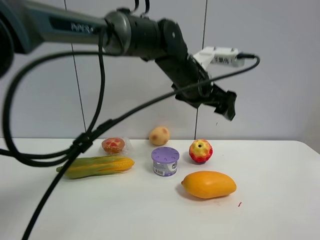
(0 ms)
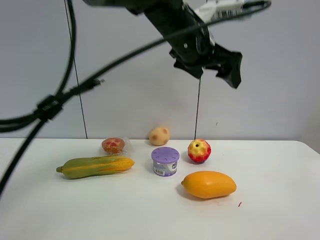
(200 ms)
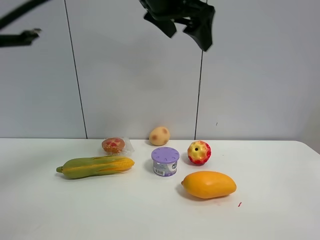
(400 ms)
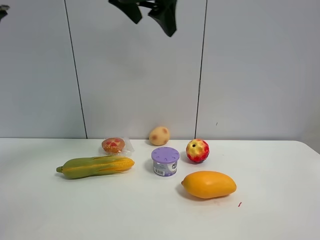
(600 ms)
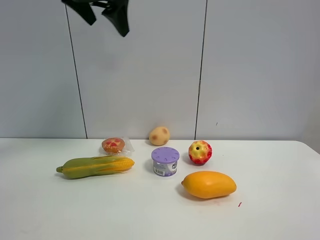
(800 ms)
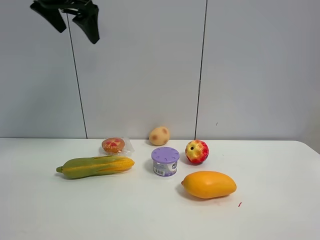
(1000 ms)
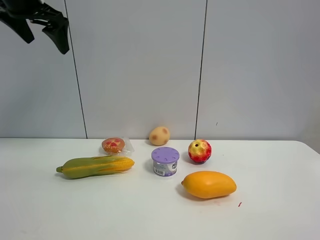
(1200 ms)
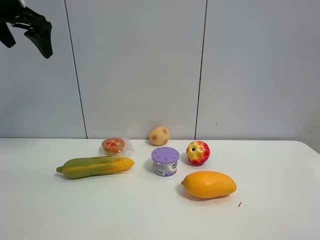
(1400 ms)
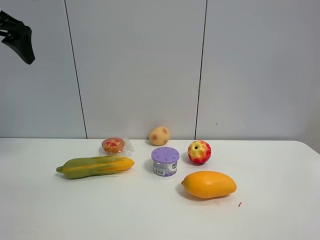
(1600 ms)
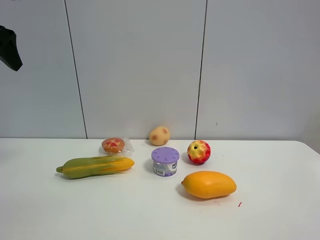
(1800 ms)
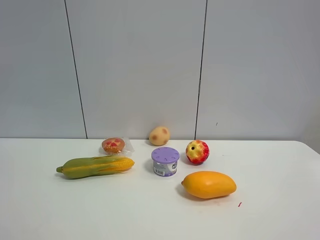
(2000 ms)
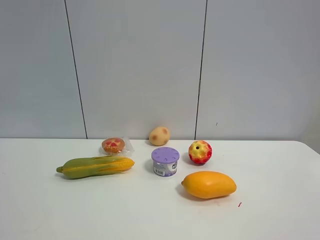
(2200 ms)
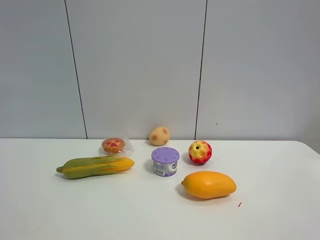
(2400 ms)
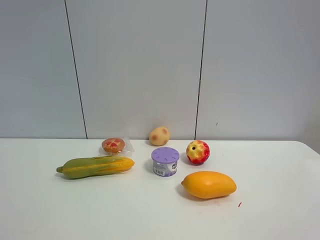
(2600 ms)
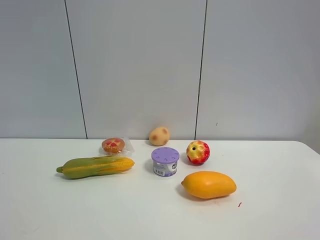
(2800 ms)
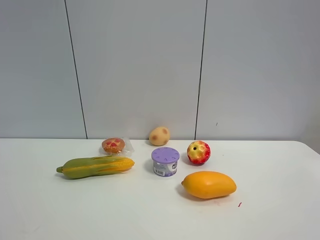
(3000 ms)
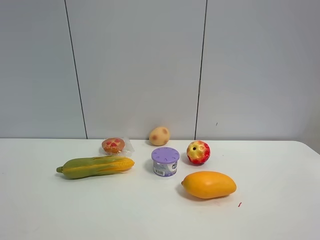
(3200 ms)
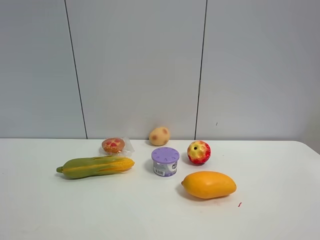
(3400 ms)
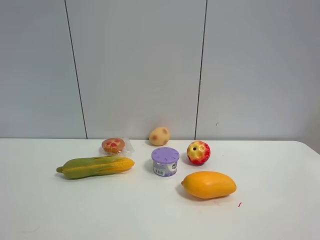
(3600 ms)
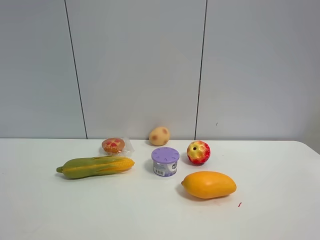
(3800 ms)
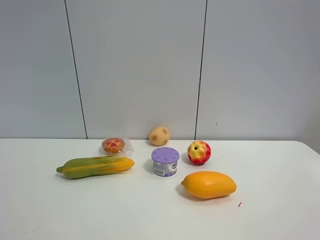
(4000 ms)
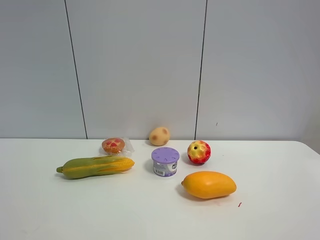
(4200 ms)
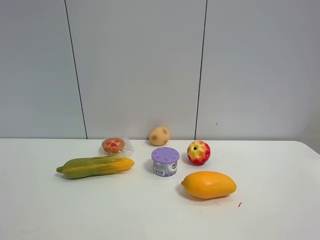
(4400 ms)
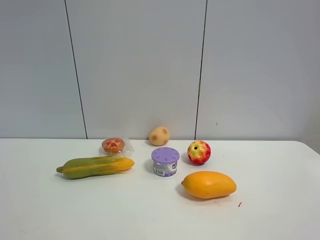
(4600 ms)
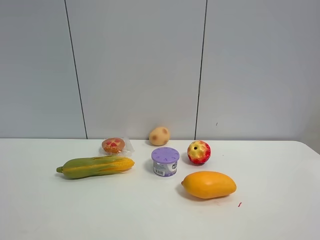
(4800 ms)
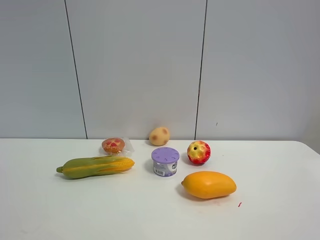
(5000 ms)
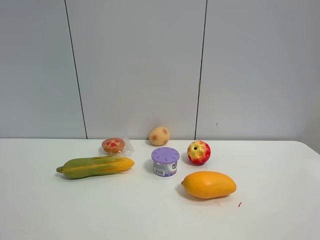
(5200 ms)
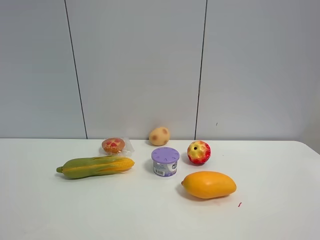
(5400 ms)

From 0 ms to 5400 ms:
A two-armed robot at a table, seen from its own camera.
Task of the whole recording: the gripper move the object.
From 0 ms to 1400 ms: The left gripper shifts approximately 40 cm to the left and upward.
From 1400 ms to 2800 ms: The left gripper travels backward by some 35 cm.
From 4000 ms to 5400 ms: The two grippers keep their place.

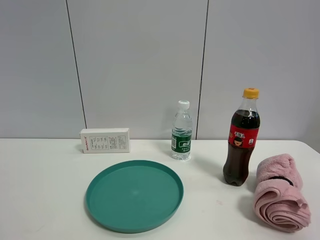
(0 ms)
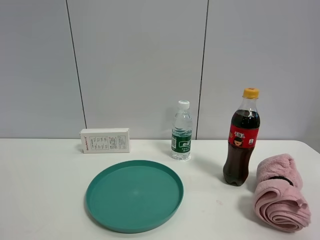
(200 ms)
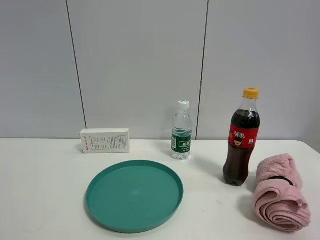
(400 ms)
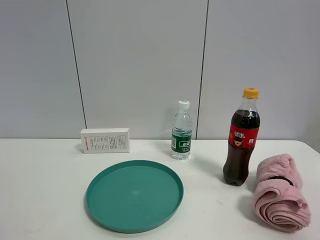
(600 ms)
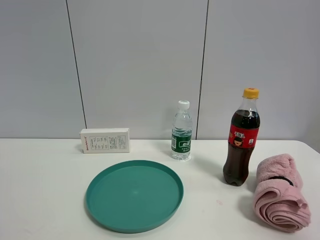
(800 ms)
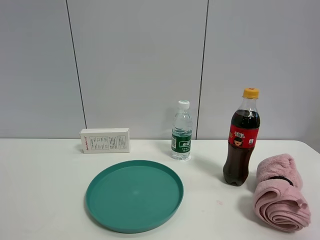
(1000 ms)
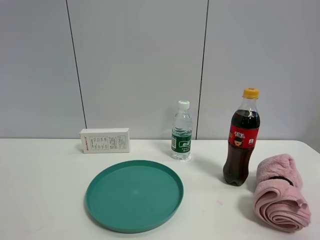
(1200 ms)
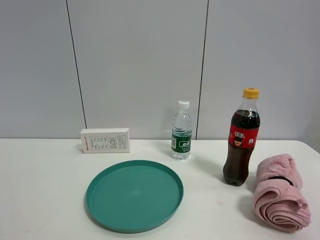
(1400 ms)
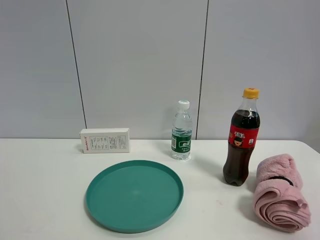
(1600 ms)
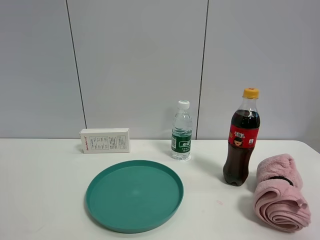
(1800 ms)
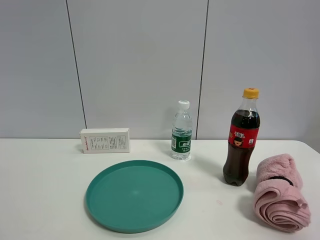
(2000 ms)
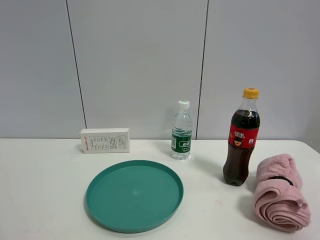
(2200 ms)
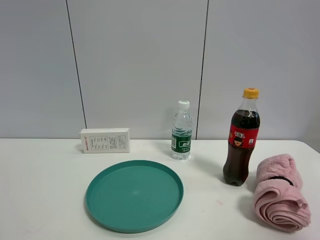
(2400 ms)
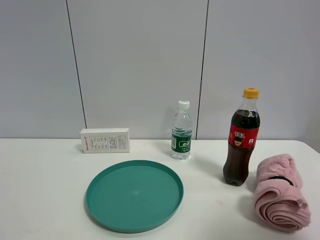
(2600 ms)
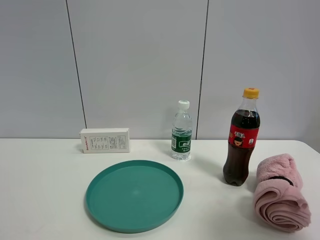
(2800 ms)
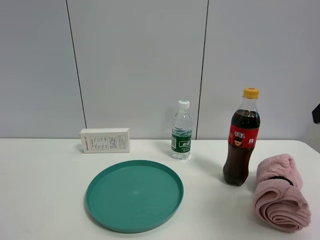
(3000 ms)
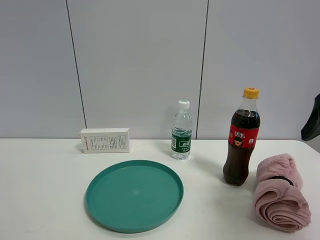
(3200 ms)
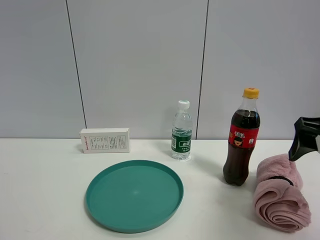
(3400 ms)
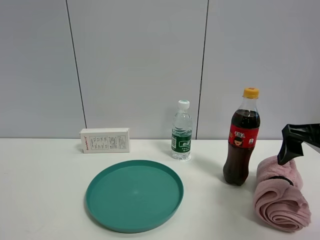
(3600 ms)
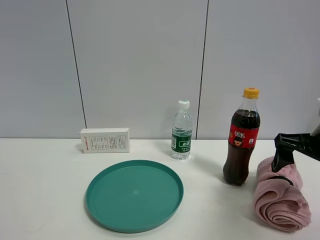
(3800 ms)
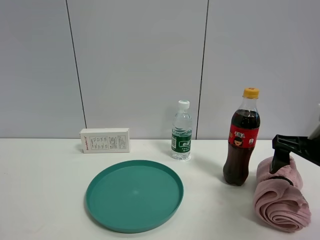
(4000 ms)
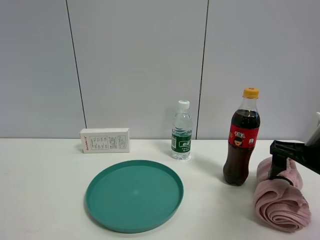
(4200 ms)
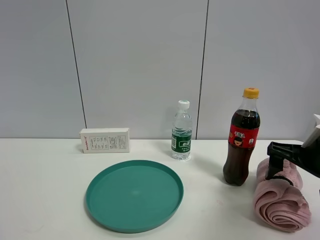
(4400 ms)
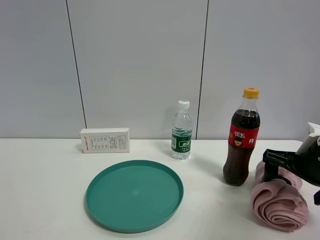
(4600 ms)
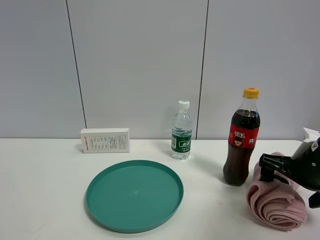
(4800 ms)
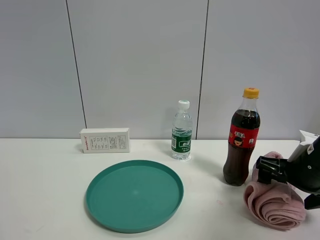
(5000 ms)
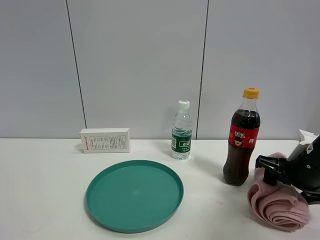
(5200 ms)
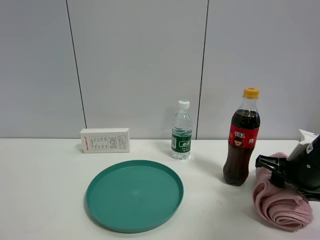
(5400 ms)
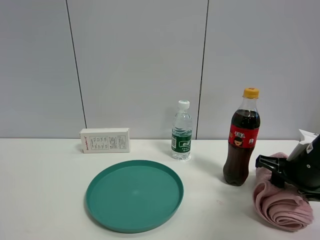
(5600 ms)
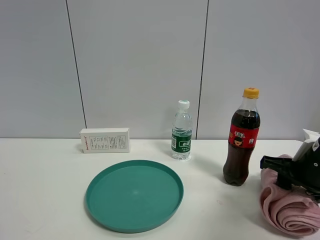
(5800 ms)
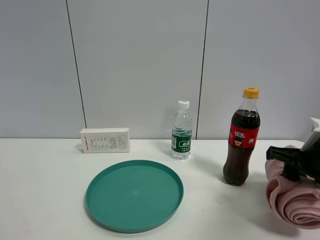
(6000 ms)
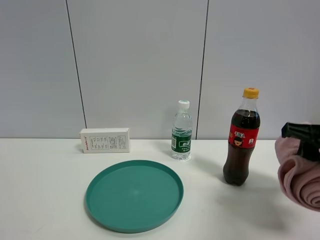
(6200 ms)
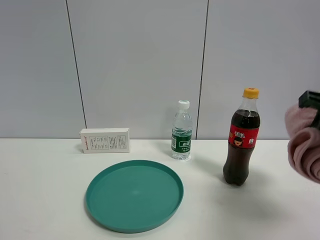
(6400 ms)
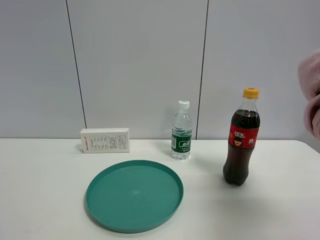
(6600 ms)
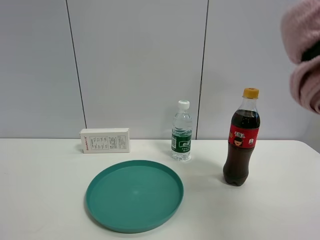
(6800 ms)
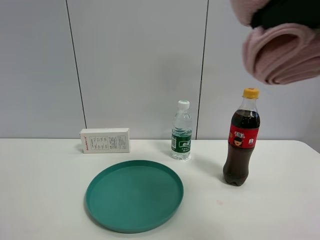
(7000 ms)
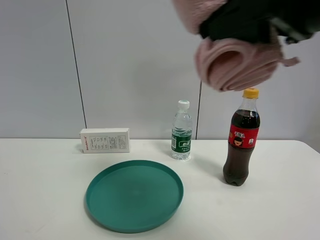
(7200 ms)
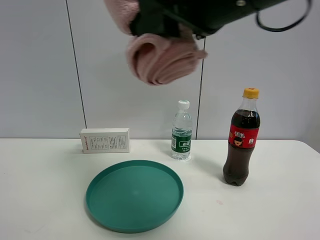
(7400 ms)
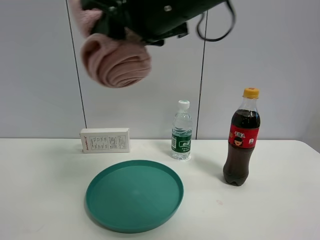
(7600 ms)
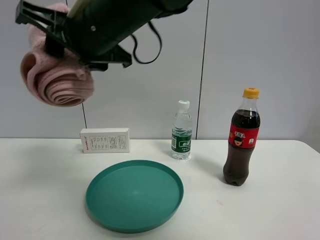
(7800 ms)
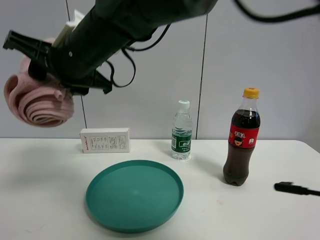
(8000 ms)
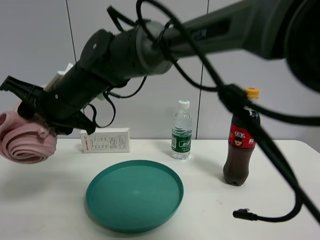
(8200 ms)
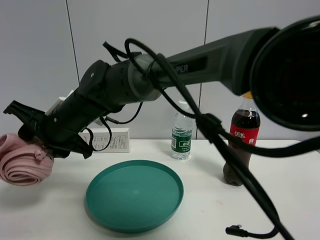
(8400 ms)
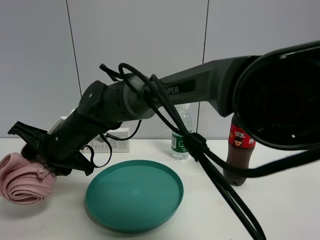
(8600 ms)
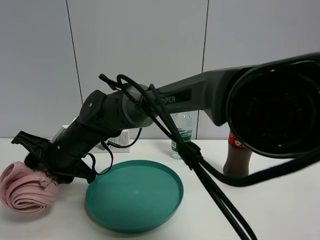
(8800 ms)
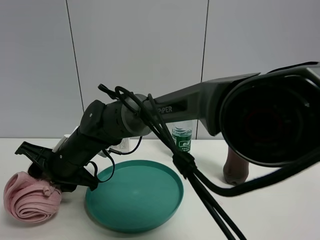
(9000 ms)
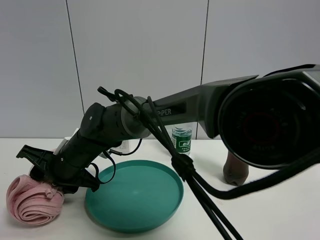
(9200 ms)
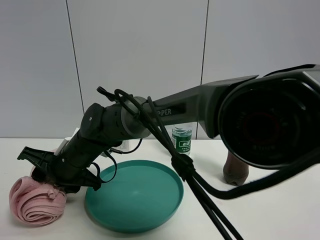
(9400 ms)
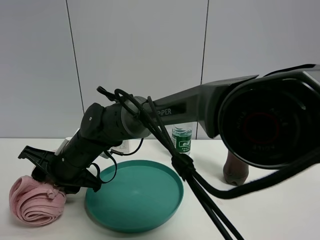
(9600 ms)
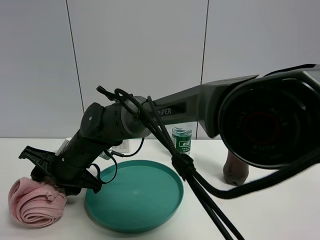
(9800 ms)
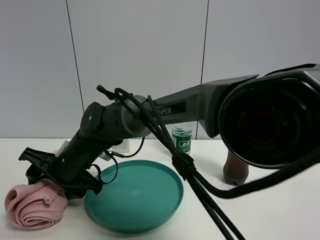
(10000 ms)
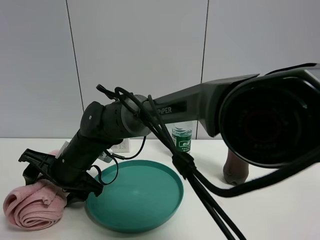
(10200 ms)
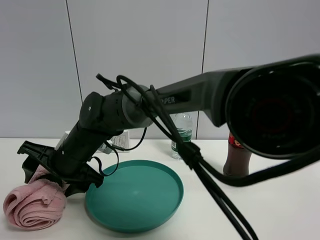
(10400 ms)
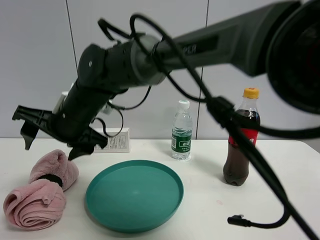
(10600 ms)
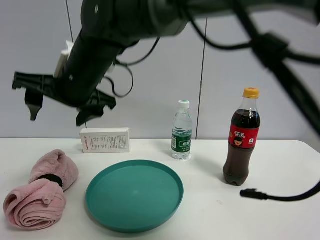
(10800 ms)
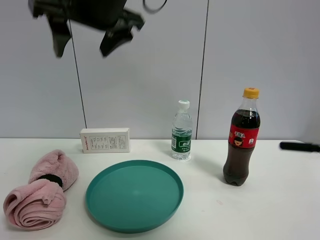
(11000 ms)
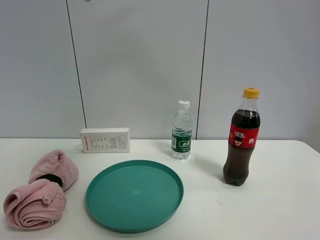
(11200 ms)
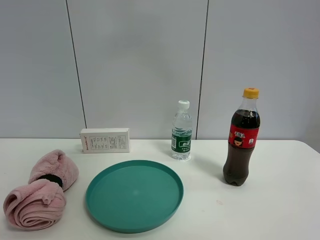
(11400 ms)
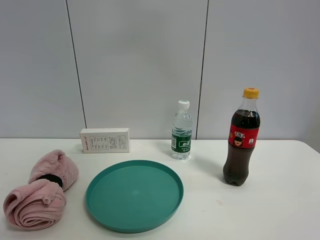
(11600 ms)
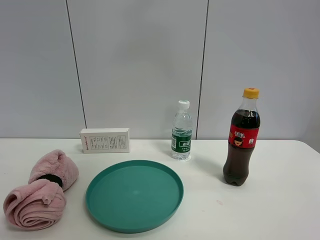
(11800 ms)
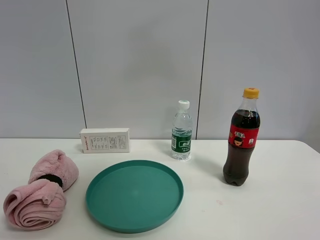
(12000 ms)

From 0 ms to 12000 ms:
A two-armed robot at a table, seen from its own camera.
Task of the whole recording: the gripper move the object.
Step, from 0 ms to 5400 ms: Grasp the pink towel with the right gripper.
Step, from 5600 ms to 10400 ms: Place the pink towel on the table with the right gripper.
From 0 ms to 1600 ms: Neither gripper changes place.
From 1600 ms to 3000 ms: The right gripper goes roughly 20 cm forward.
From 3000 ms to 4400 ms: The right gripper shifts some 15 cm downward and forward.
From 4400 ms to 6000 ms: The right gripper closes up.
From 6000 ms to 7600 ms: The right gripper moves to the left and upward, some 35 cm.
From 7600 ms to 9000 ms: The right gripper travels downward and to the left by roughly 30 cm.
From 9000 ms to 10400 ms: The right gripper opens.
From 10400 ms to 12000 ms: The right gripper goes about 50 cm upward, to the right and backward.

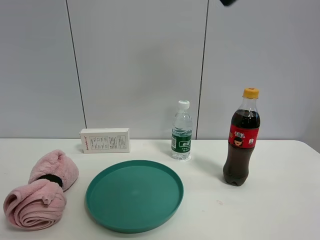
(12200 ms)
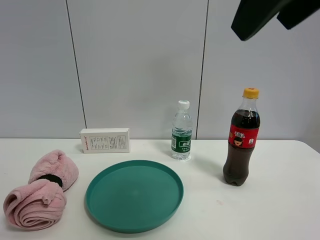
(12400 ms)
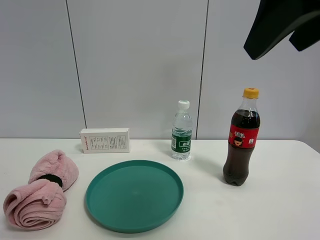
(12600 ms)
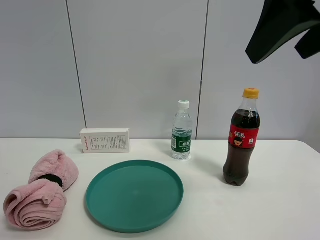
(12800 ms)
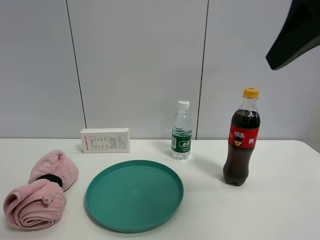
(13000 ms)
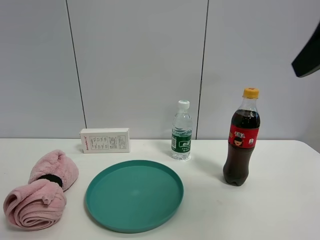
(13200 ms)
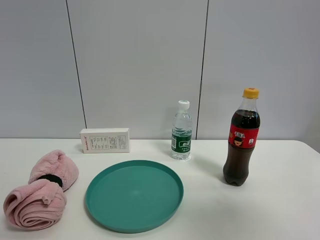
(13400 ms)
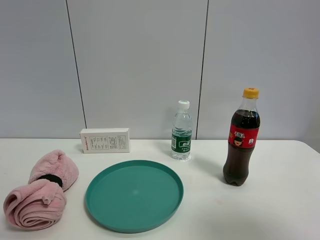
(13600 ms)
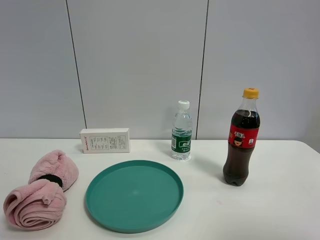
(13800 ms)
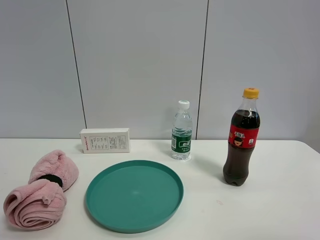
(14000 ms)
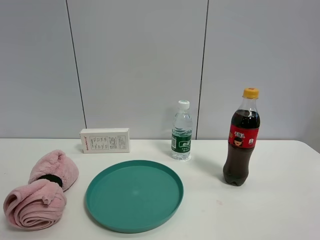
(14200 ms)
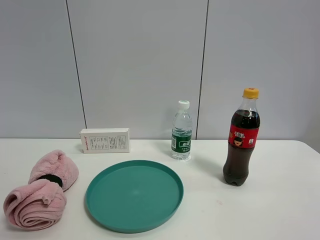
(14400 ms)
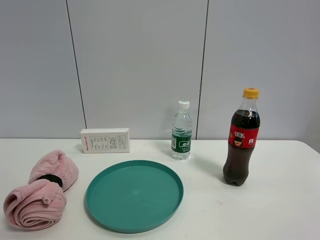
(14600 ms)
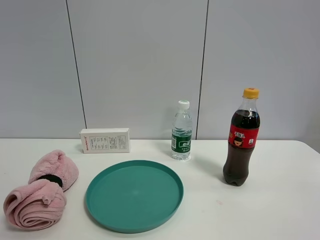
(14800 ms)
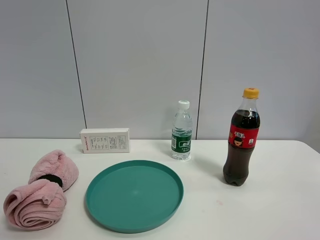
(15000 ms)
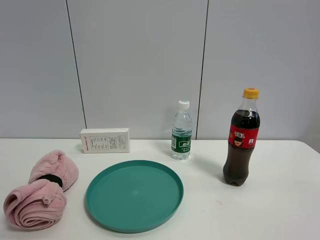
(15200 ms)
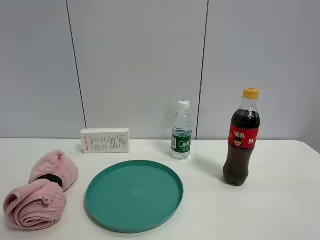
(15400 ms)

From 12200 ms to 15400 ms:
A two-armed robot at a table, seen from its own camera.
Task of the whole recording: the gripper move the object.
From 12200 ms to 13800 ms: The right gripper goes some 25 cm to the right, downward and backward, and opens its fingers.

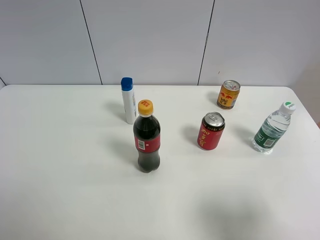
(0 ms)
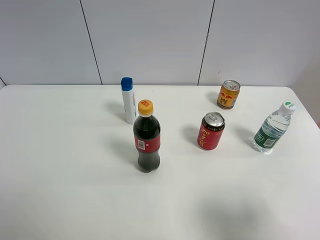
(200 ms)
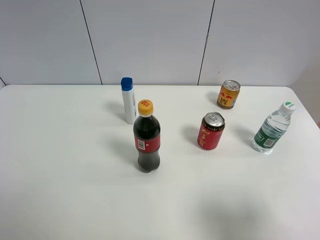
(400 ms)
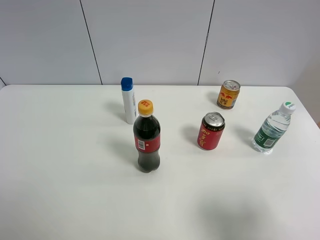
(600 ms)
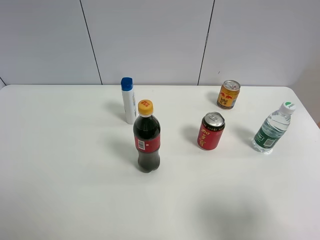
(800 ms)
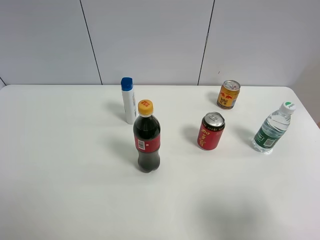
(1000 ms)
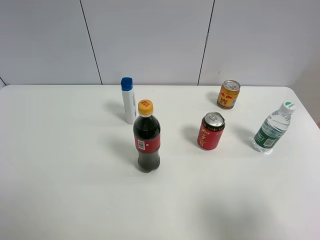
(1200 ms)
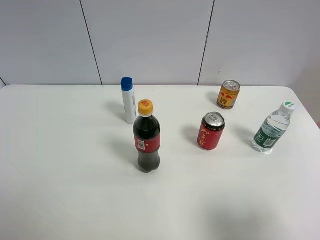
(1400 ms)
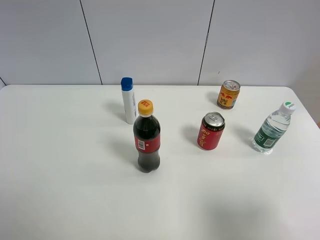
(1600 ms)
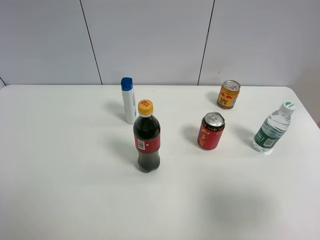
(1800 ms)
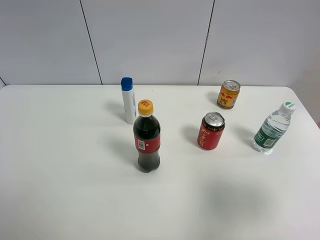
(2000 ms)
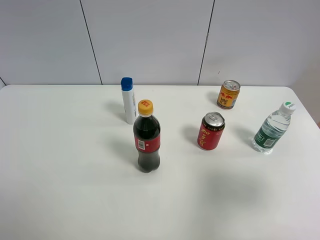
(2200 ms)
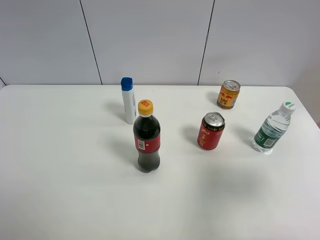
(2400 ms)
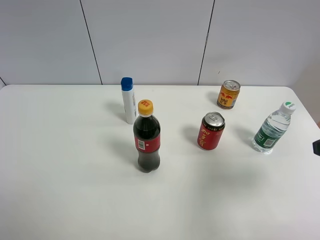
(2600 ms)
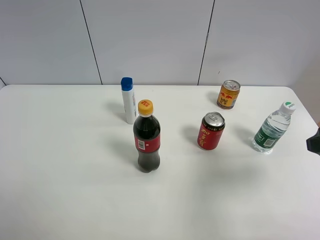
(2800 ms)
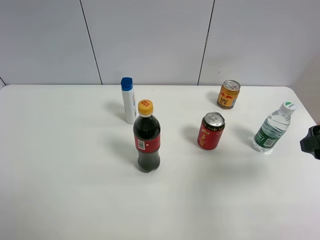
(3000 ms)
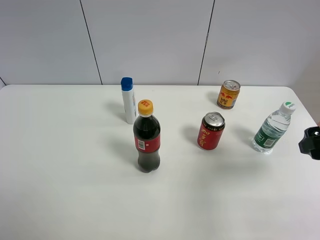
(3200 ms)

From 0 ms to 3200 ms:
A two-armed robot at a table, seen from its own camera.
Task of the whole recording: the gripper move the object.
From 1600 ms to 3200 ms: The right gripper heads forward, covering some 15 cm.
